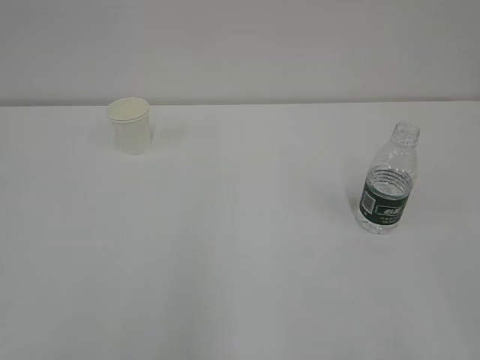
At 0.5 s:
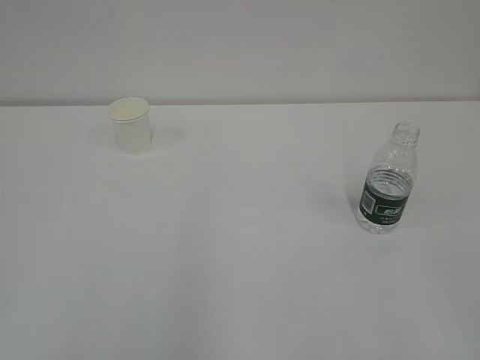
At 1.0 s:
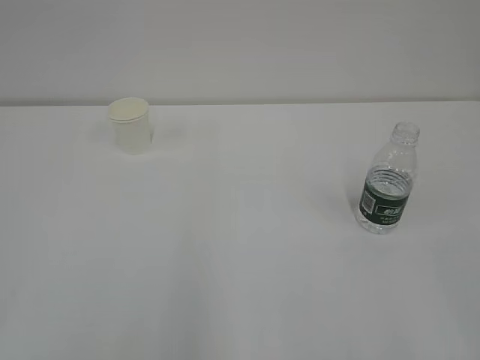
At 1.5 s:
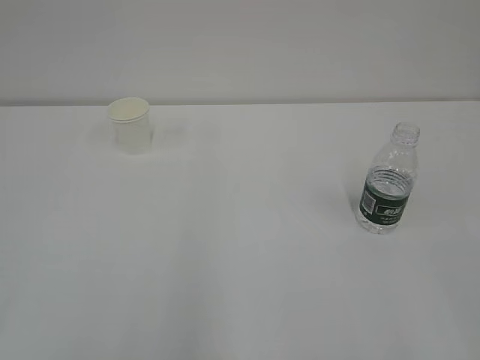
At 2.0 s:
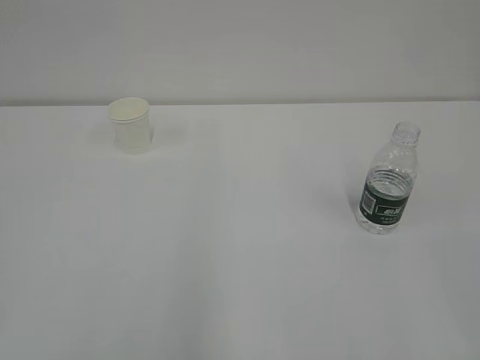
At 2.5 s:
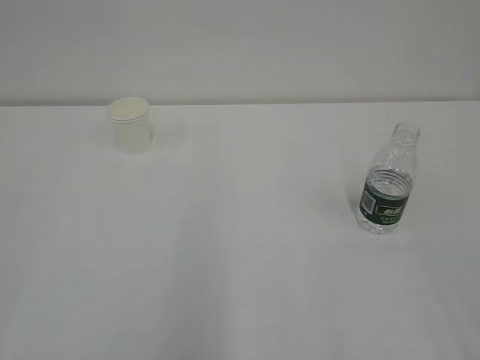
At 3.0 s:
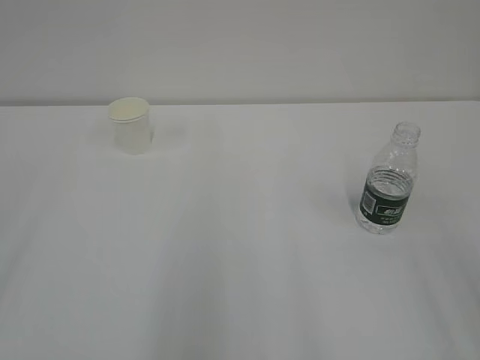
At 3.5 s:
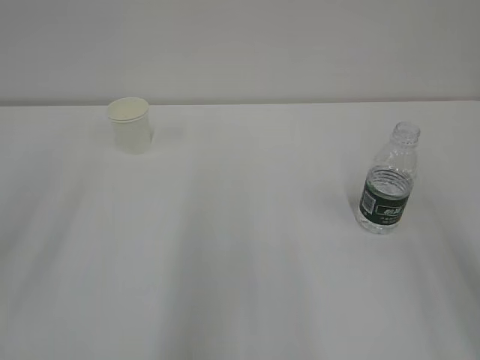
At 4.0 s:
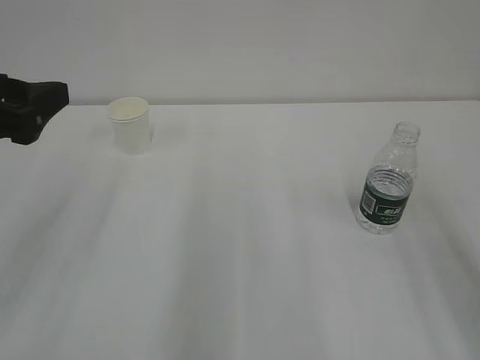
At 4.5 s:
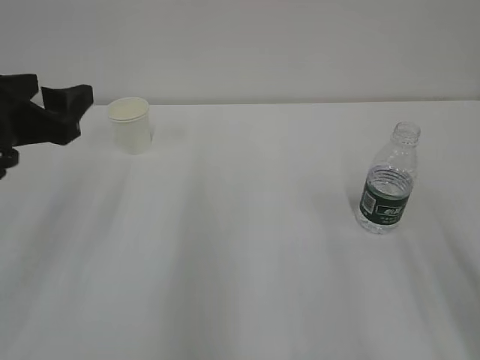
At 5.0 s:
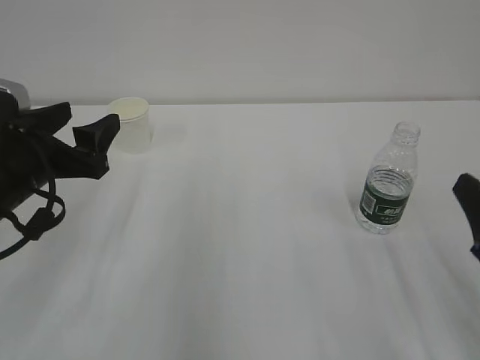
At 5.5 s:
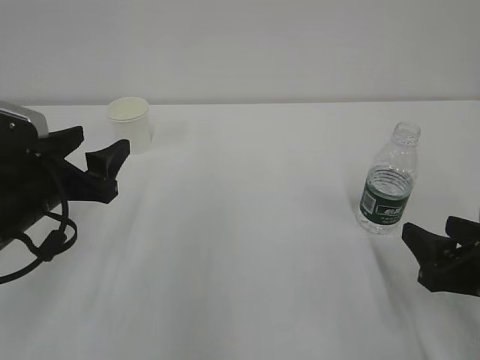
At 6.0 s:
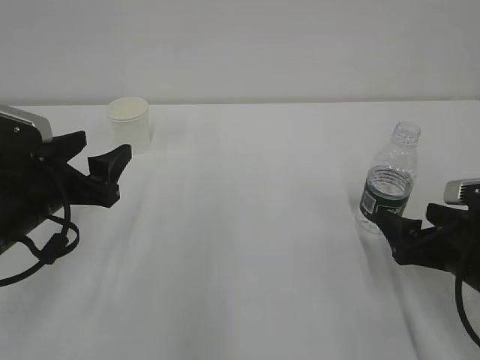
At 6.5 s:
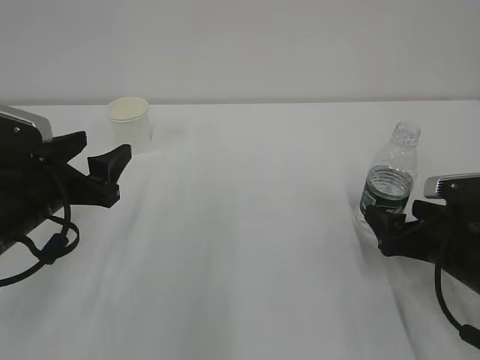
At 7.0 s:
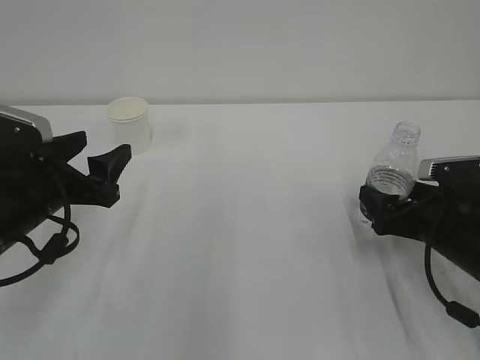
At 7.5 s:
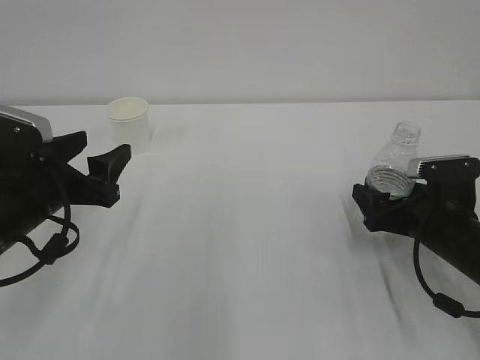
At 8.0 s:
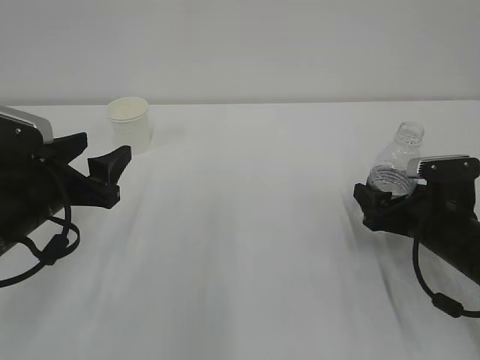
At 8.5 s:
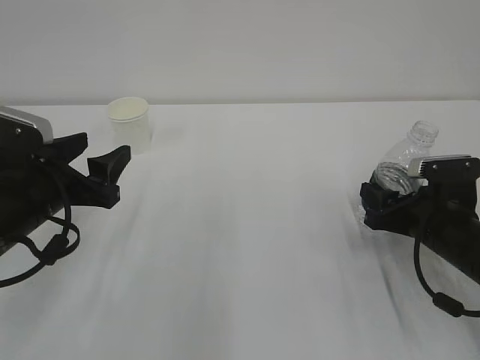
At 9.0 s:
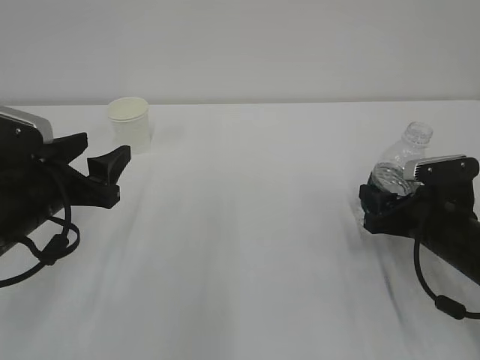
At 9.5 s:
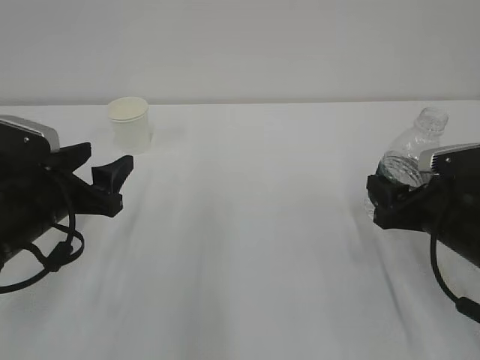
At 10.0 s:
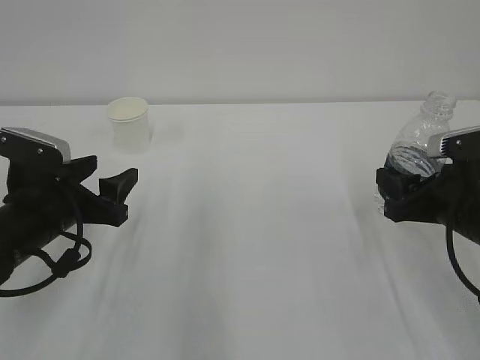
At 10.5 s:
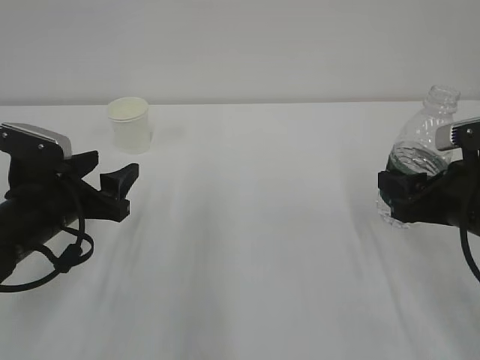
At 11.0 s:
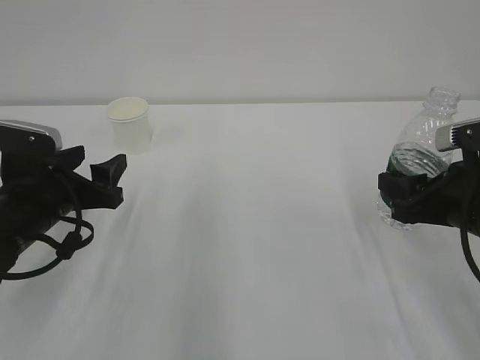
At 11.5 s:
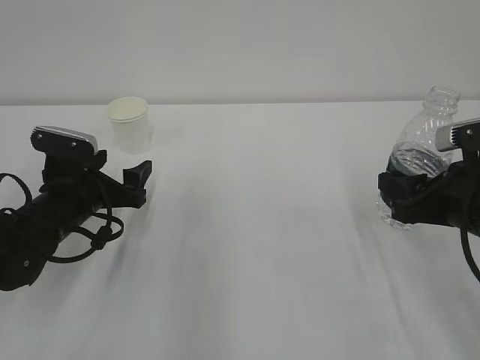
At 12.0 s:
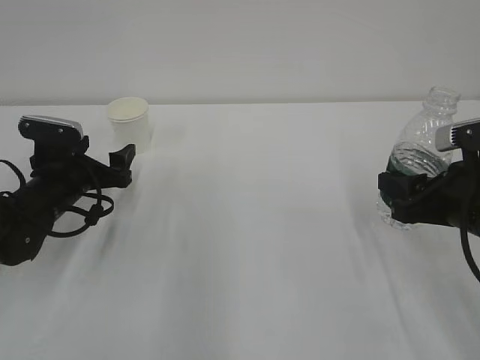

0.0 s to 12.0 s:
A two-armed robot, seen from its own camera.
2.0 to 4.0 s: The left gripper is displaced forward by approximately 25 cm, and opens up.
4.0 to 6.0 s: The left gripper goes roughly 10 cm downward; the right gripper heads downward, covering approximately 20 cm, and opens up.
6.0 to 8.0 s: The right gripper heads forward, covering roughly 5 cm.
8.0 to 10.0 s: The right gripper shifts about 5 cm upward, and closes up.
10.0 to 12.0 s: The left gripper heads forward, covering some 10 cm, and opens its fingers.

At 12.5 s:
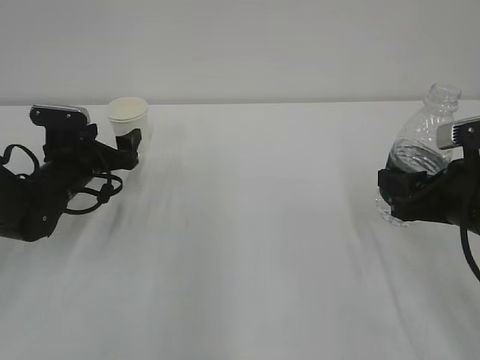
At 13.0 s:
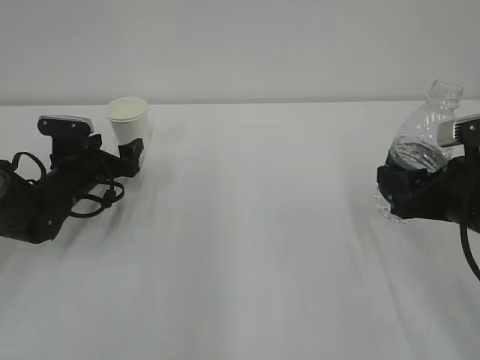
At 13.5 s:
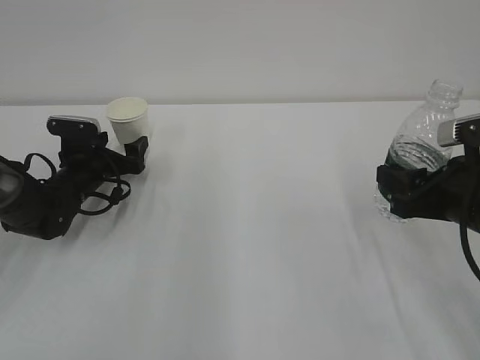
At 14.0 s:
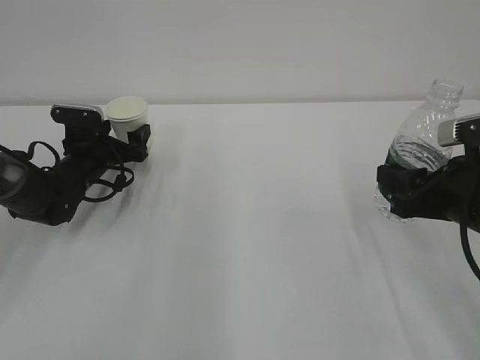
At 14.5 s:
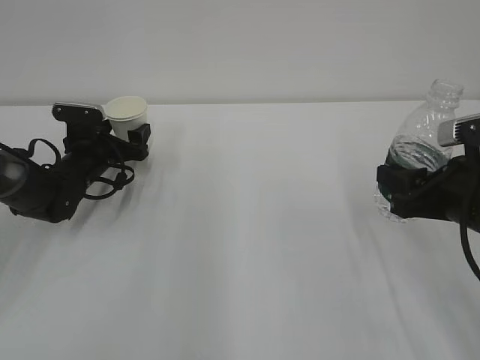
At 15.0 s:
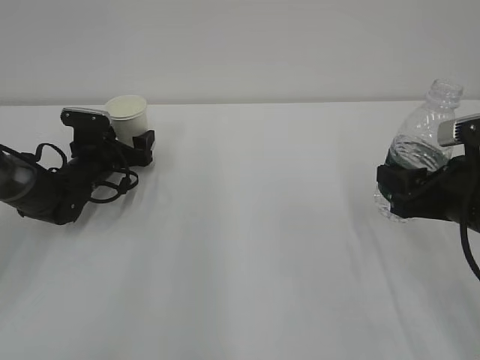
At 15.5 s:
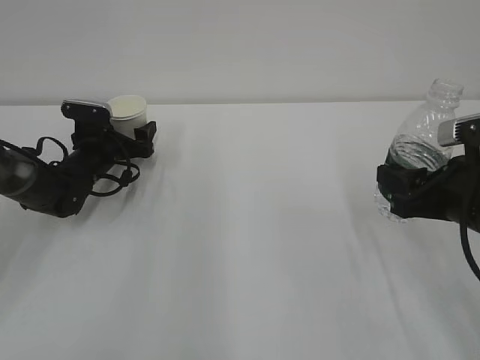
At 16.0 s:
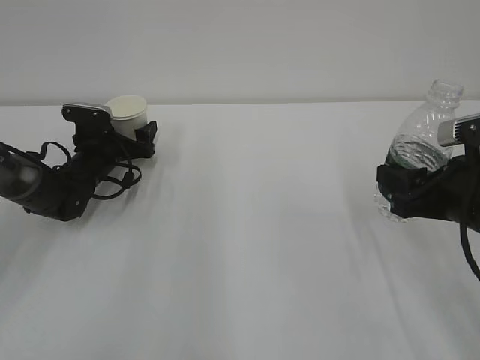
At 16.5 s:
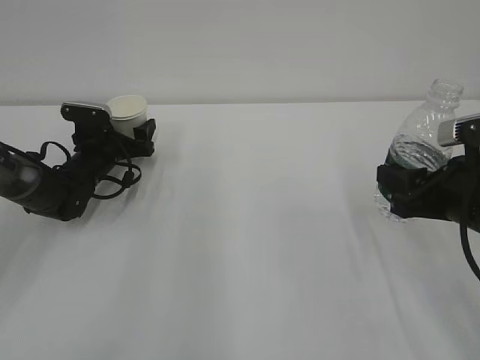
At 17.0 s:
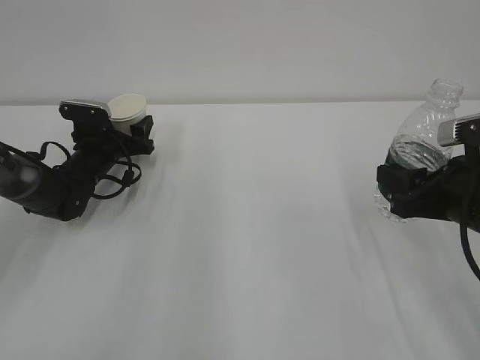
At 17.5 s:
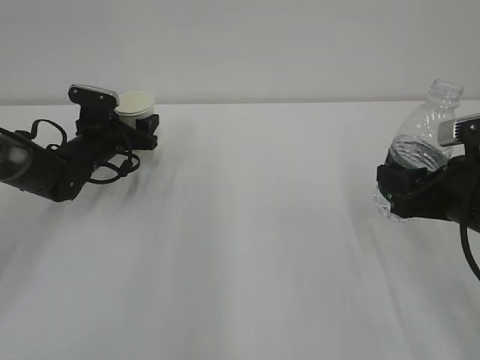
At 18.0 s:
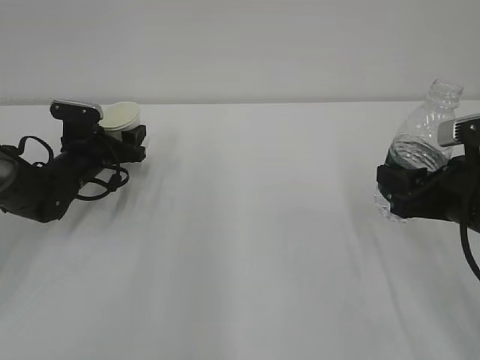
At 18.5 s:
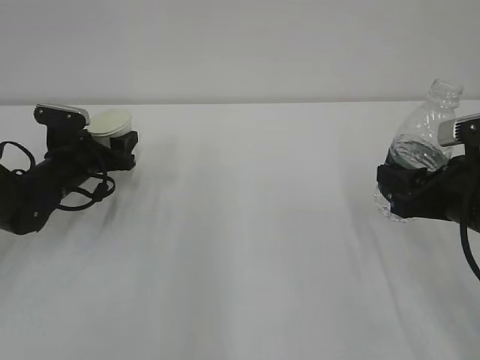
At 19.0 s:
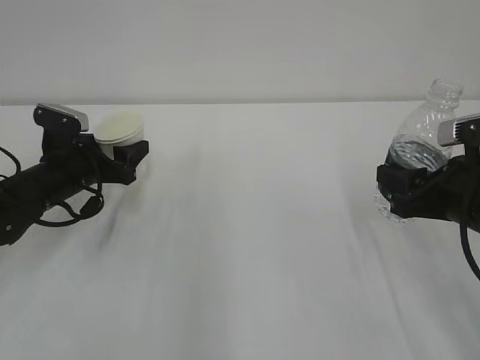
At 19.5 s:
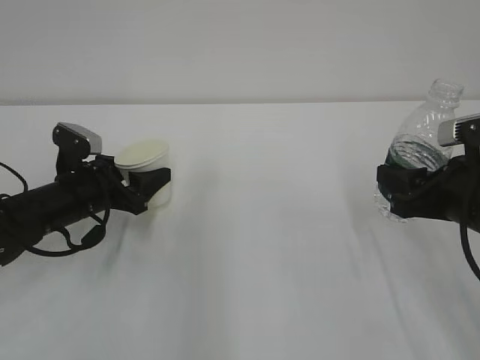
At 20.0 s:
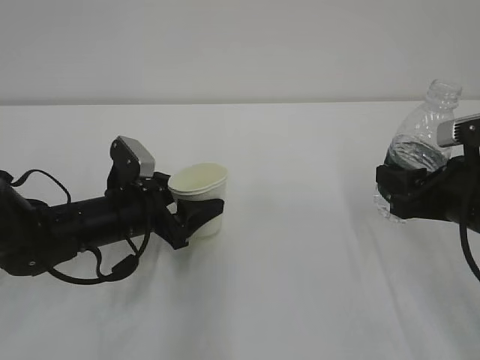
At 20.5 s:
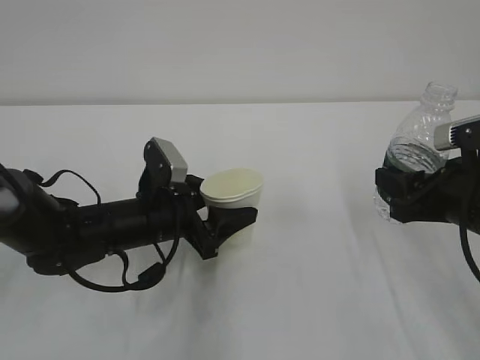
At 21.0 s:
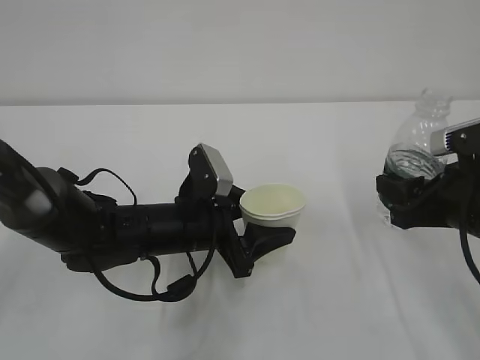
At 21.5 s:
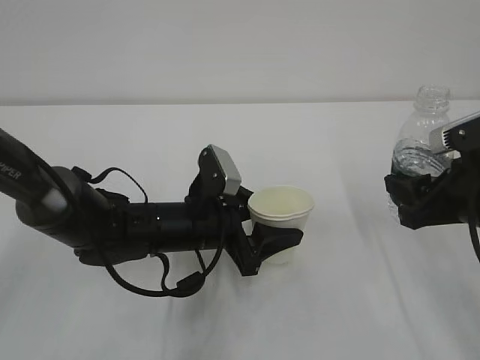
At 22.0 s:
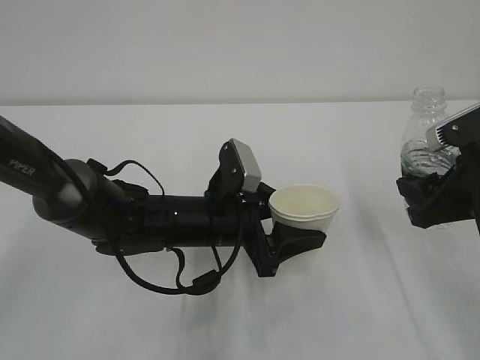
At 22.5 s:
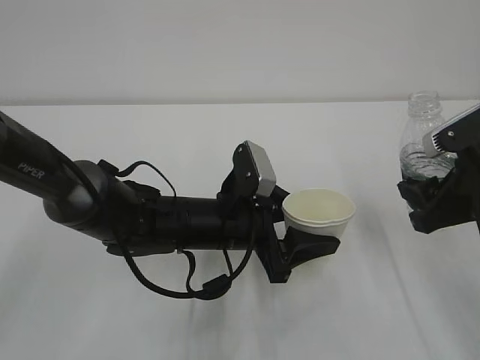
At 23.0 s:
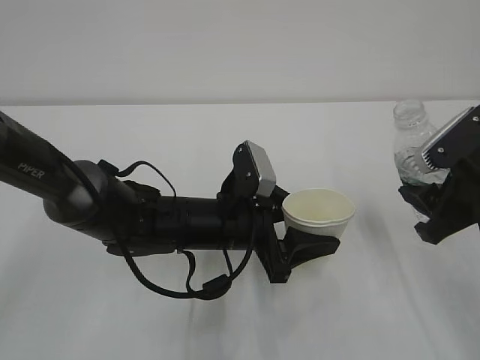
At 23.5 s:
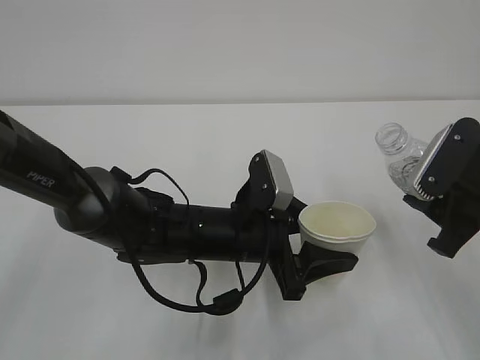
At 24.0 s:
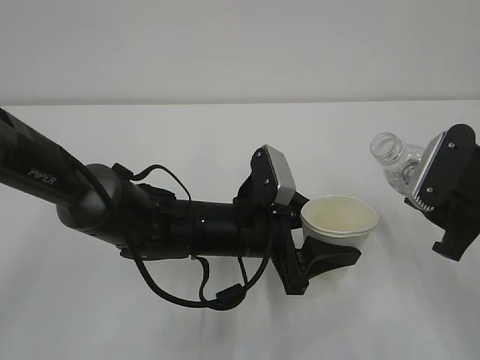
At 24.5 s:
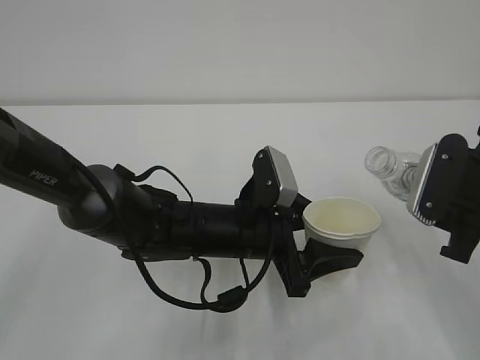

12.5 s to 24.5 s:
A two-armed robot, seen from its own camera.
12.5 to 14.5 s: The left gripper travels forward by some 5 cm.
14.5 to 16.5 s: The grippers move only a little.
16.5 to 18.5 s: The left gripper shifts roughly 5 cm backward, and closes.
18.5 to 20.5 s: The left gripper travels to the right and backward by some 20 cm.
20.5 to 22.5 s: The left gripper moves to the right, about 10 cm.

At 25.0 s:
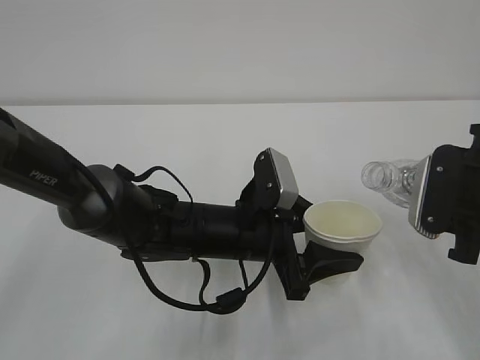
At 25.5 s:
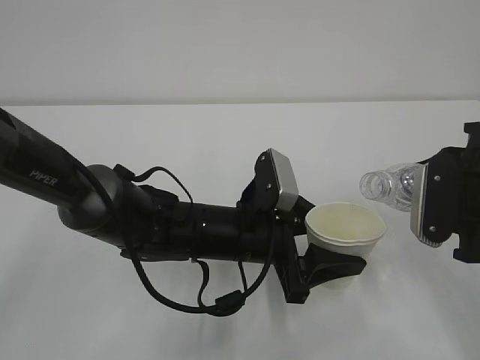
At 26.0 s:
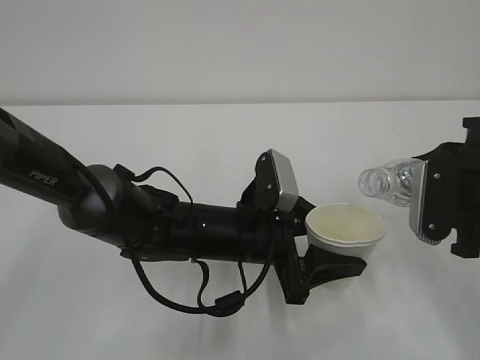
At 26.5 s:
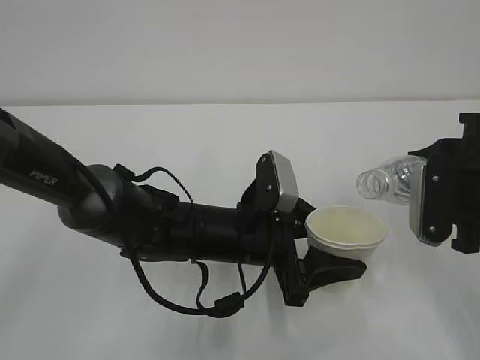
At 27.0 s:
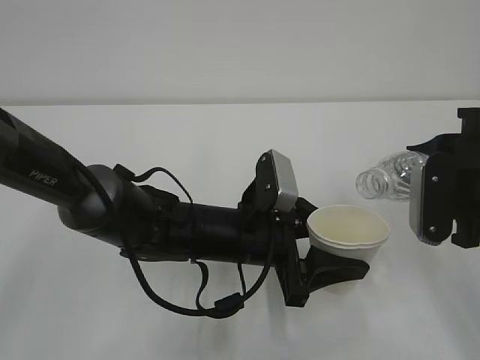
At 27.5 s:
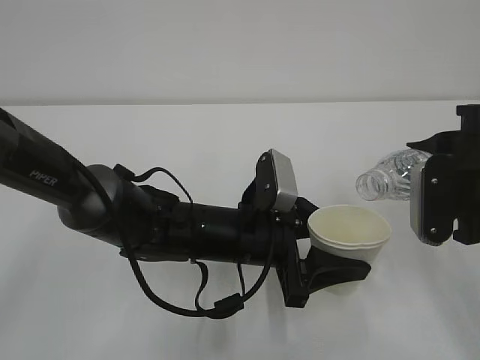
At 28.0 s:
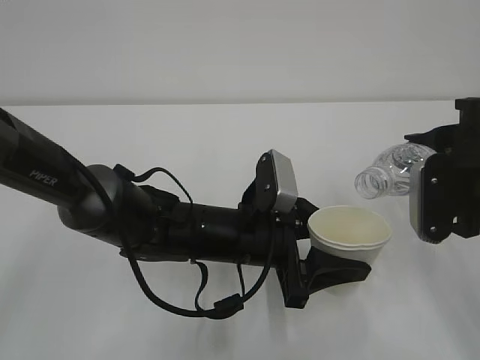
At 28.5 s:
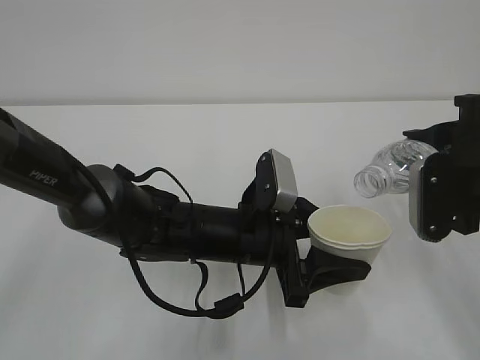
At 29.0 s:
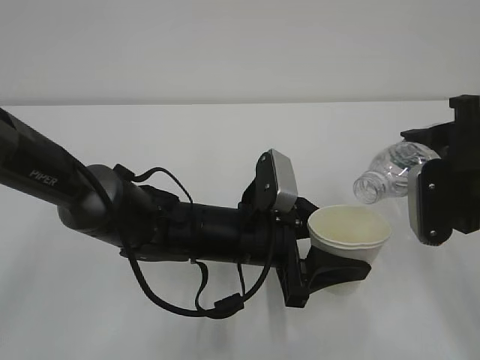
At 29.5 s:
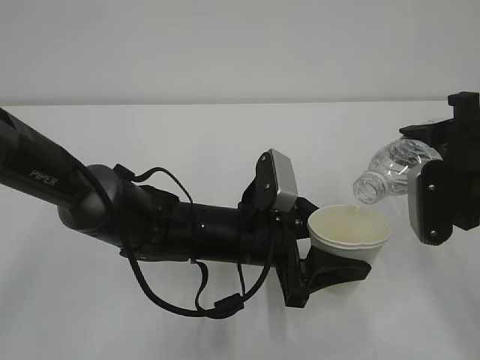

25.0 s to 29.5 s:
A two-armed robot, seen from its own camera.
25.0 to 27.0 s: The grippers make only small movements.
27.0 to 29.5 s: There are only small adjustments of the grippers.
